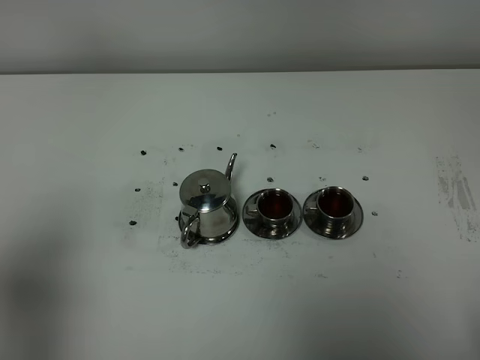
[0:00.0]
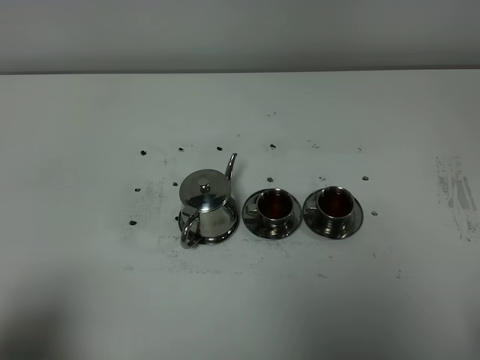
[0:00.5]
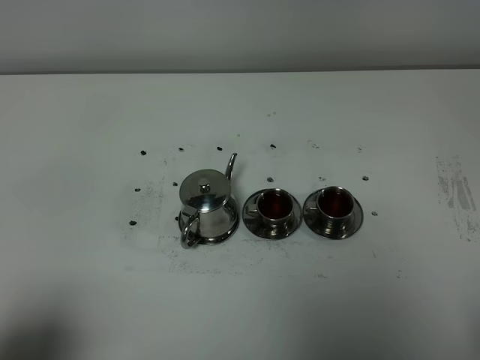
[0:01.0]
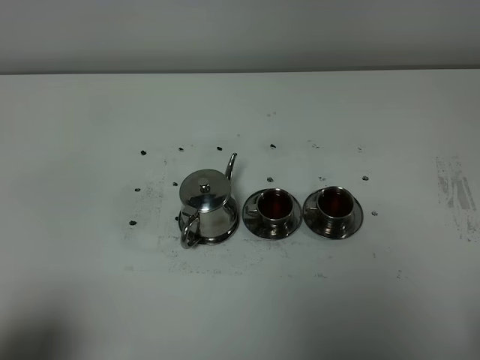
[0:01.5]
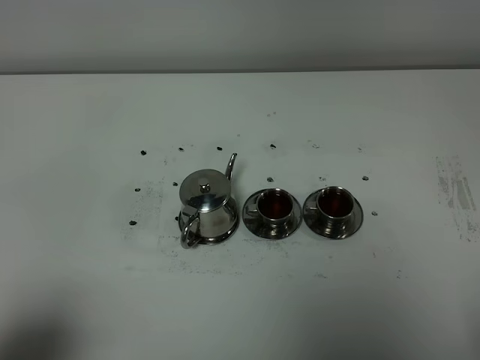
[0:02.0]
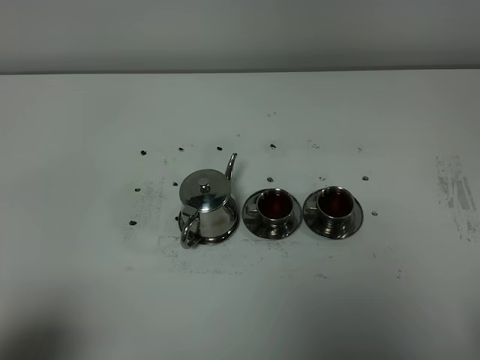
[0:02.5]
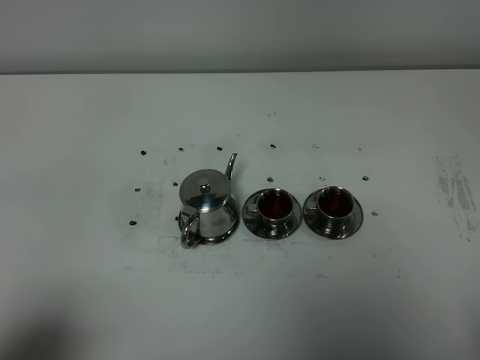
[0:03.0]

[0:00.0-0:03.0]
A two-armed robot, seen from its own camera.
Task of the whole recording: grasp the stainless steel teapot and pour the tea into the two stainless steel teacups one by one, put the stainless steel teapot back in its original place.
0:00.0 to 0:01.5: The left gripper shifts about 10 cm downward and backward.
0:01.5 to 0:03.0: Neither gripper changes place.

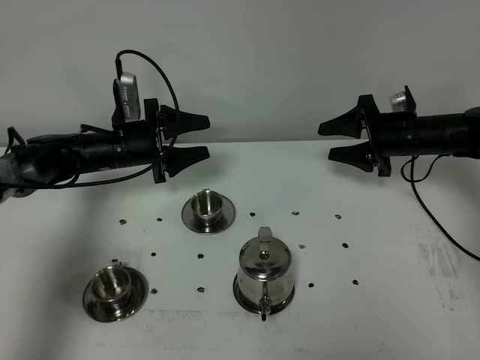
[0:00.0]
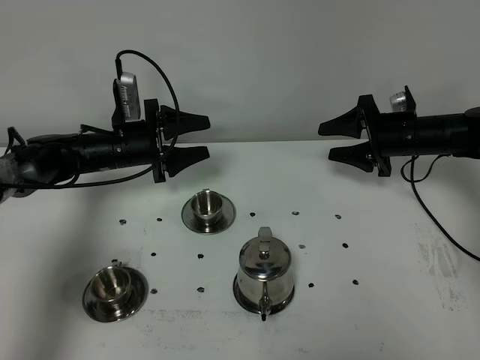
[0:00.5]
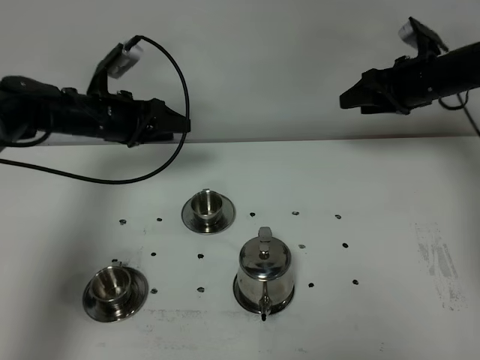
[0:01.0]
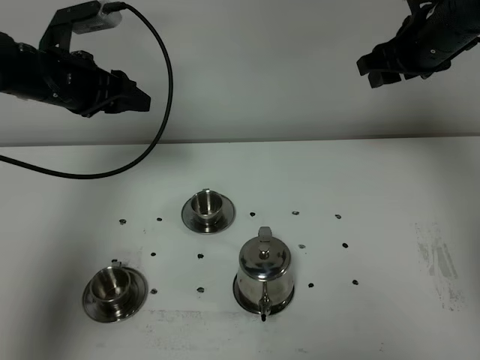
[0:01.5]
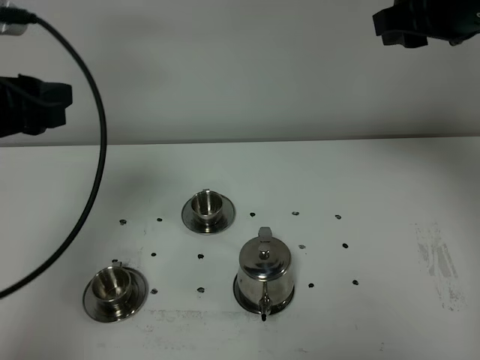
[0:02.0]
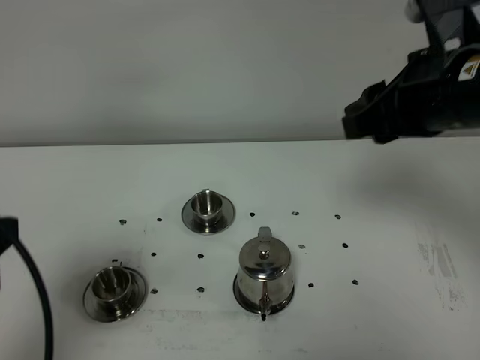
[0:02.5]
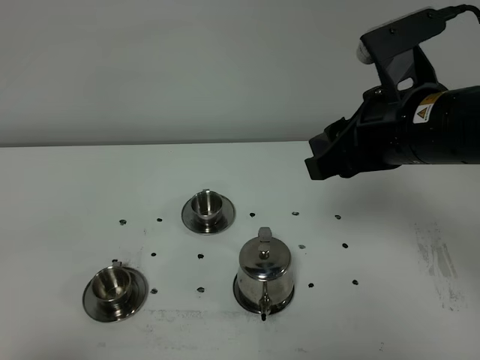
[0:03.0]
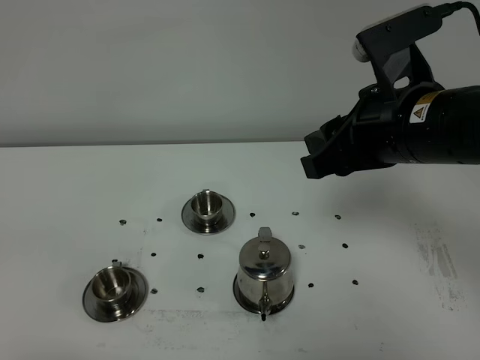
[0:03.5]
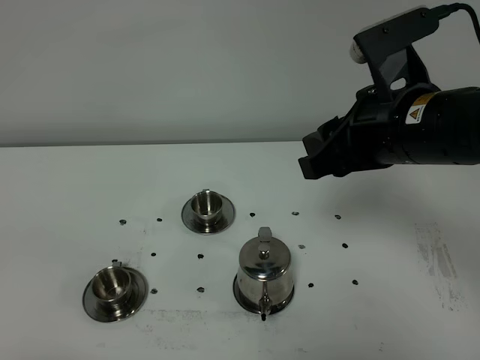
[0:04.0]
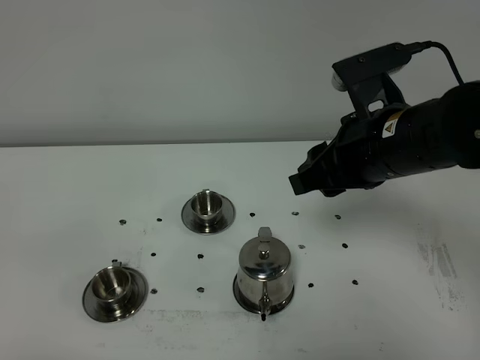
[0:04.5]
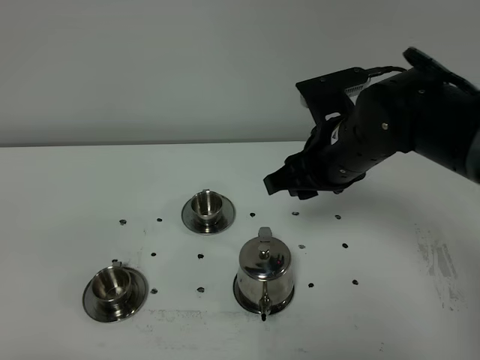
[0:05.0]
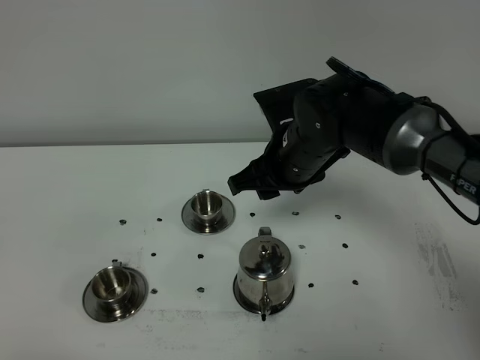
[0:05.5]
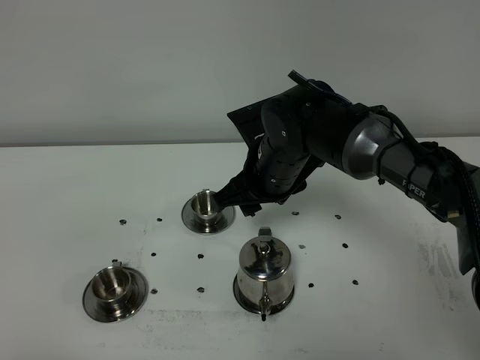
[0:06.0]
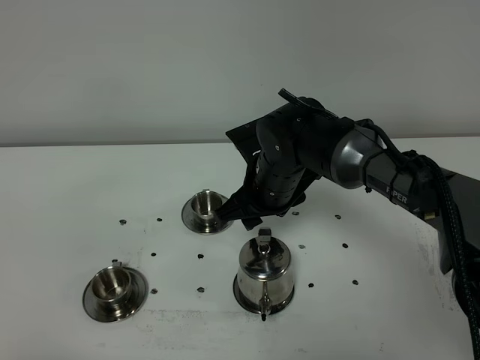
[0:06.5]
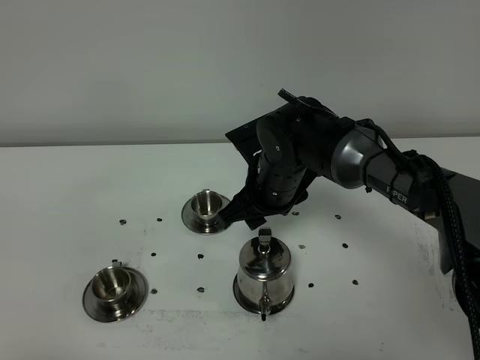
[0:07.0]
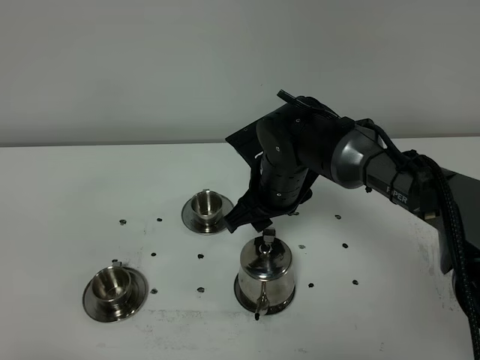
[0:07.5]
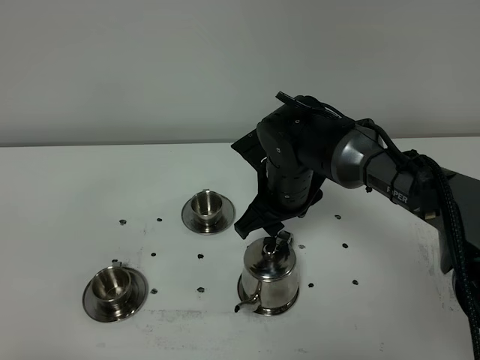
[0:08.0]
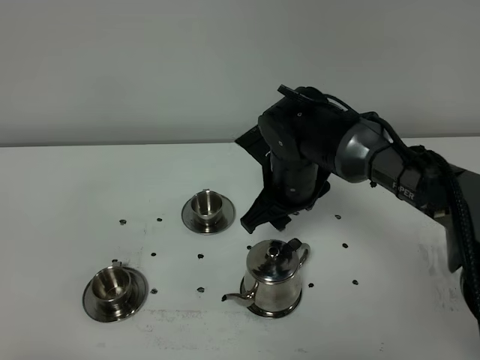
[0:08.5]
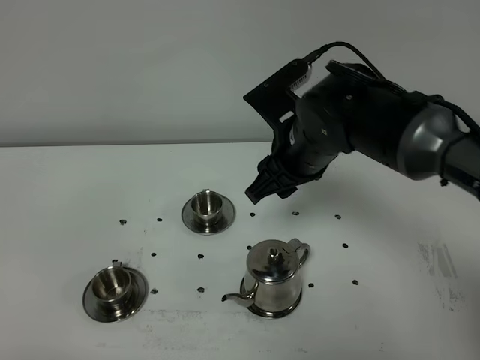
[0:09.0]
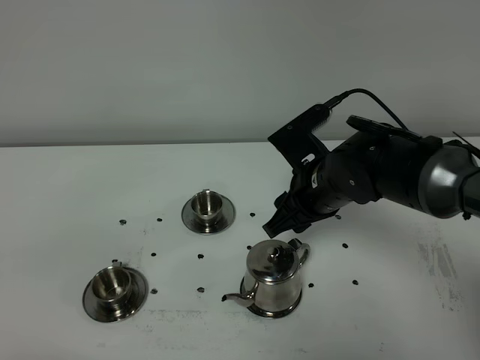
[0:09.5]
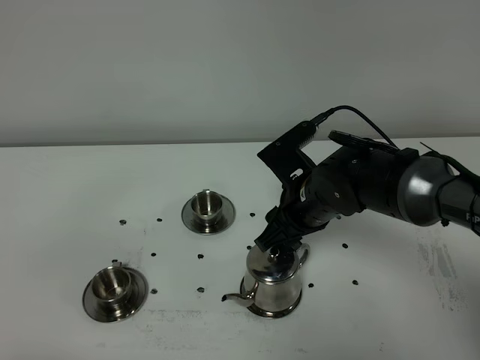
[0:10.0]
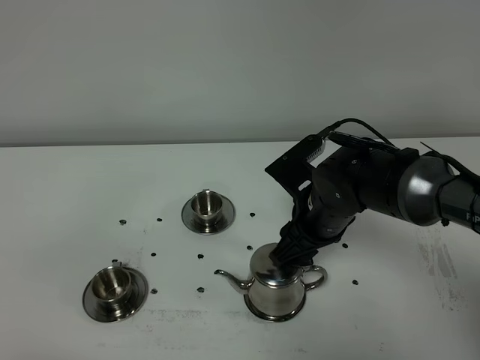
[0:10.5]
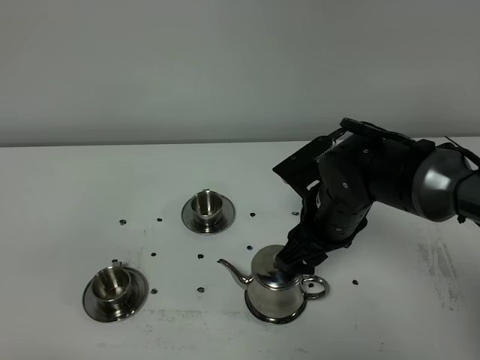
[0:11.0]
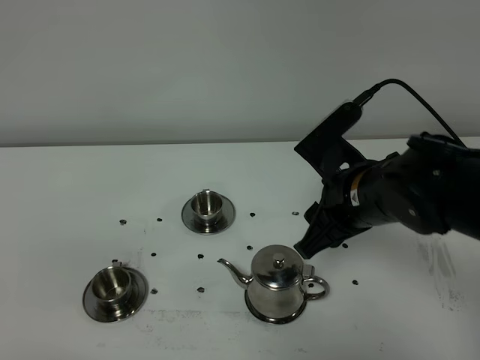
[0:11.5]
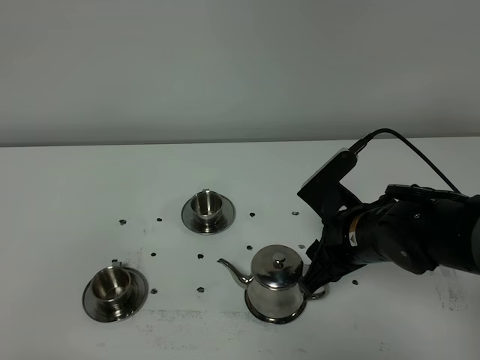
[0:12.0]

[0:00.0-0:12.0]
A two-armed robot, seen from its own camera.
Task of the whole recording: grasp the stainless steel teapot and pour the tea into the two stainless steel teacups one by one, put the stainless steel teapot back in its original place.
0:00.0 to 0:02.0: The grippers both shift upward and backward by about 30 cm.
0:02.0 to 0:04.0: The right gripper heads backward, downward and to the left, covering about 15 cm; the left gripper heads backward, covering approximately 30 cm.
0:04.0 to 0:06.0: The right gripper goes some 20 cm downward, to the left and forward.
0:06.0 to 0:08.0: There are only small adjustments of the grippers.
0:08.0 to 0:10.0: The right gripper reaches some 5 cm upward, then returns.
0:10.0 to 0:12.0: The right gripper shifts some 5 cm backward.

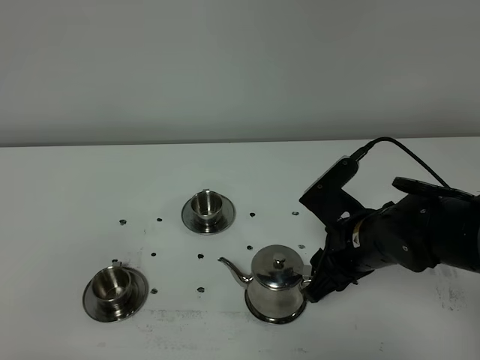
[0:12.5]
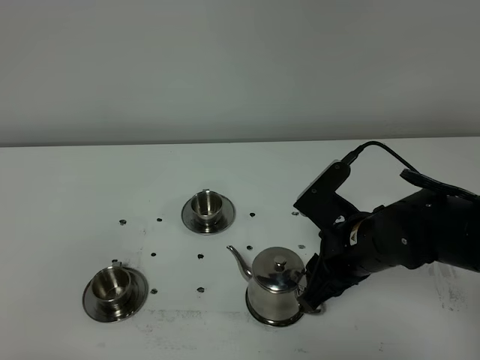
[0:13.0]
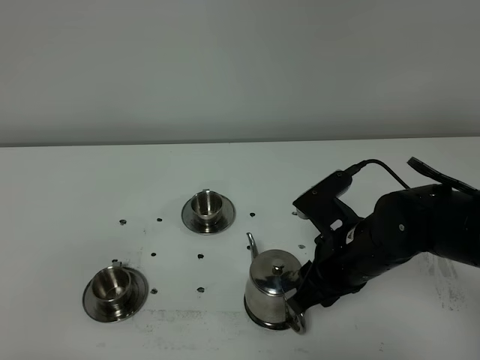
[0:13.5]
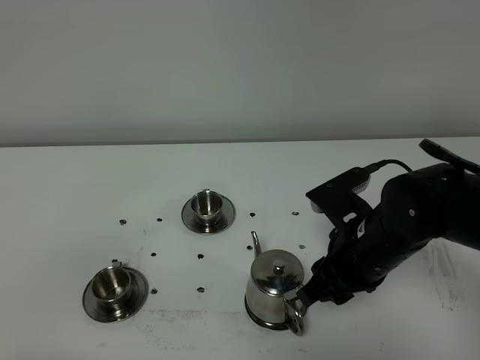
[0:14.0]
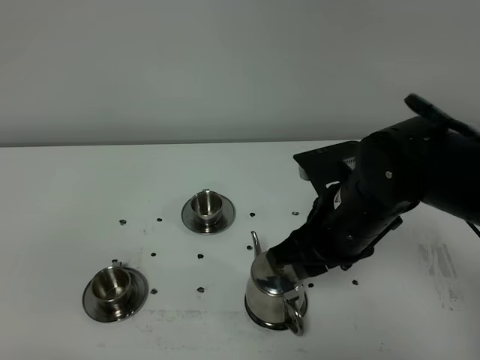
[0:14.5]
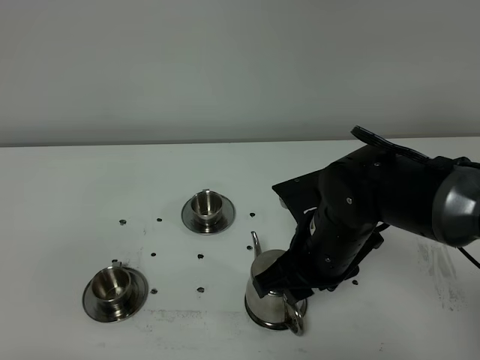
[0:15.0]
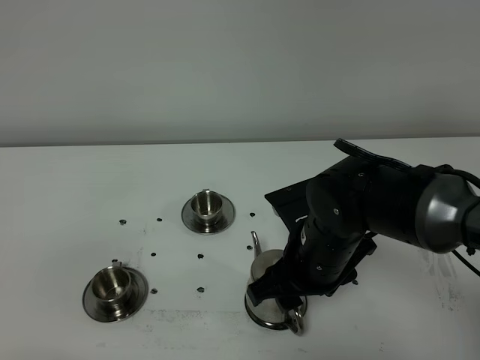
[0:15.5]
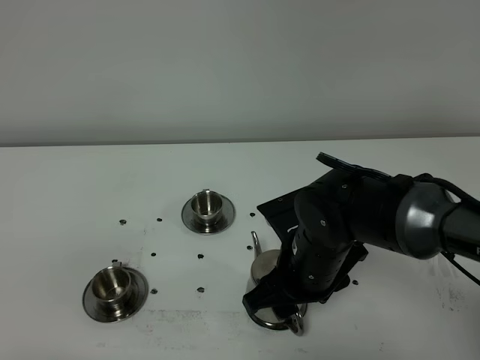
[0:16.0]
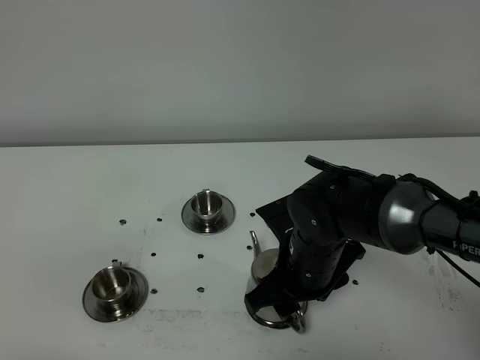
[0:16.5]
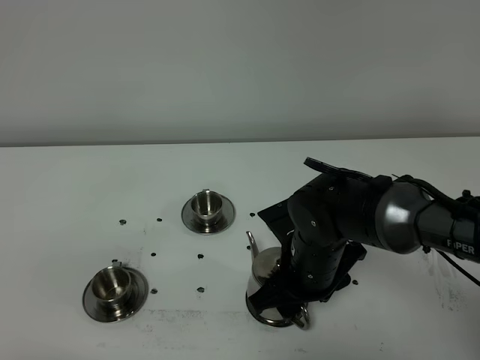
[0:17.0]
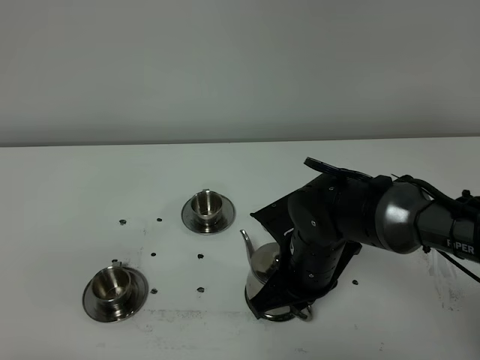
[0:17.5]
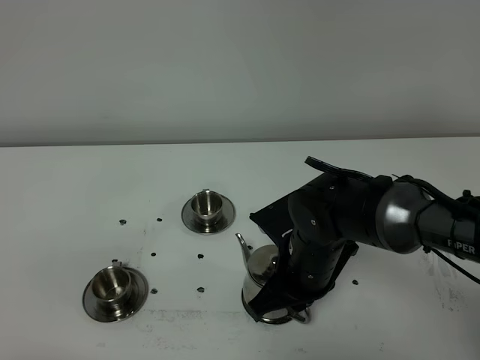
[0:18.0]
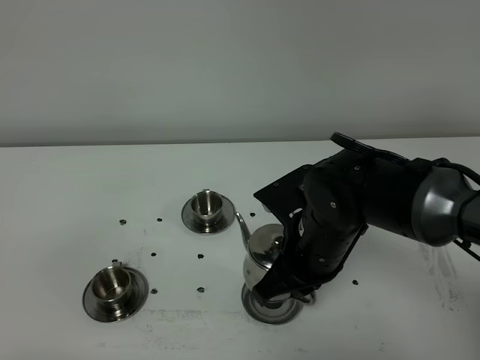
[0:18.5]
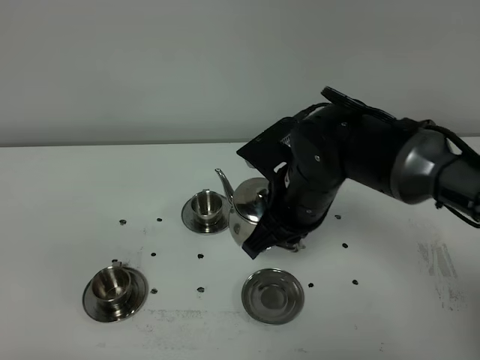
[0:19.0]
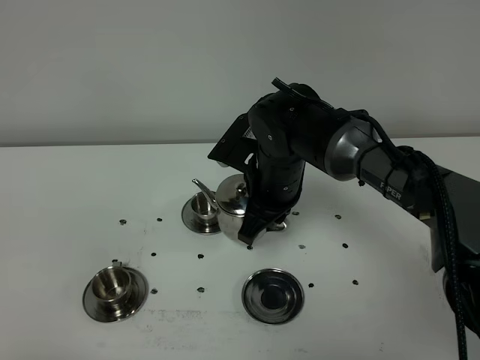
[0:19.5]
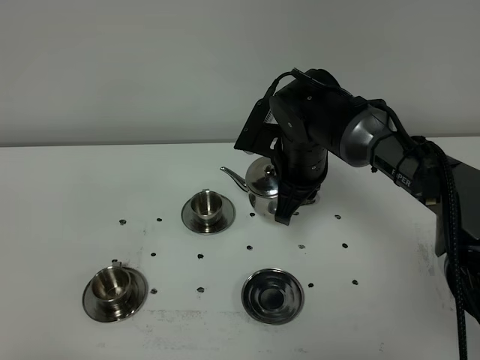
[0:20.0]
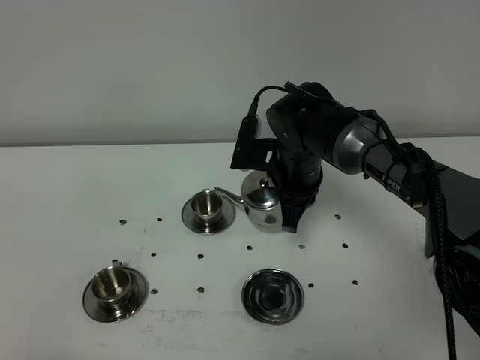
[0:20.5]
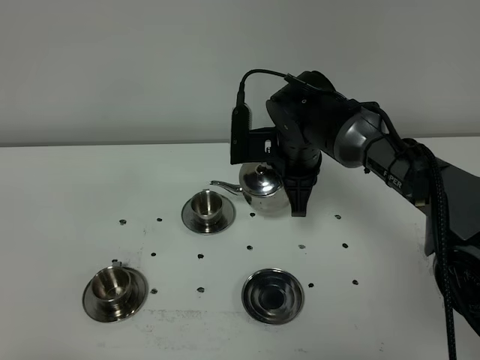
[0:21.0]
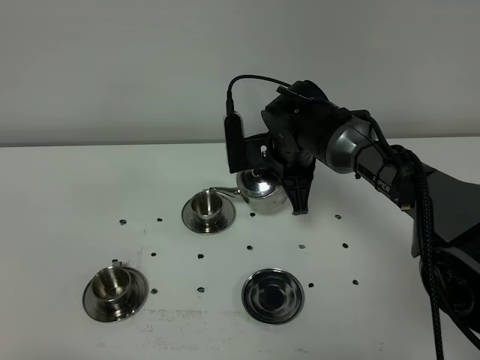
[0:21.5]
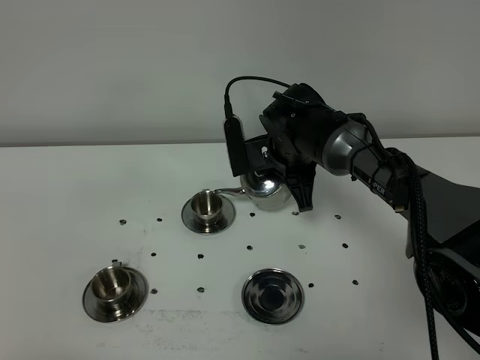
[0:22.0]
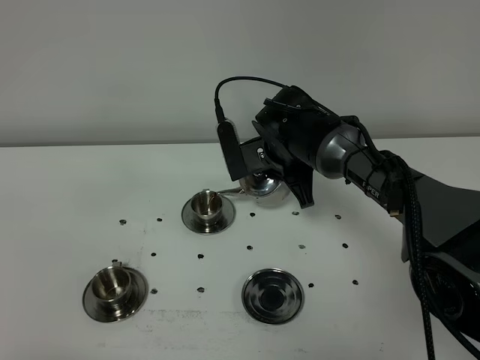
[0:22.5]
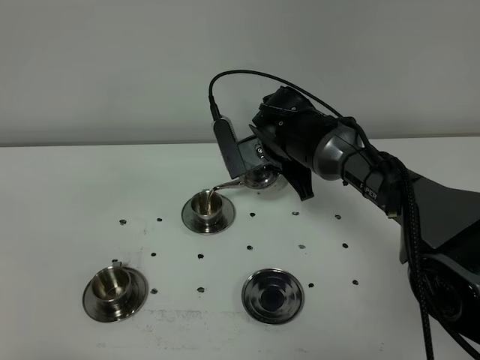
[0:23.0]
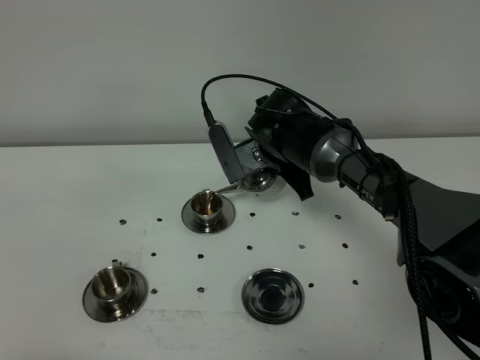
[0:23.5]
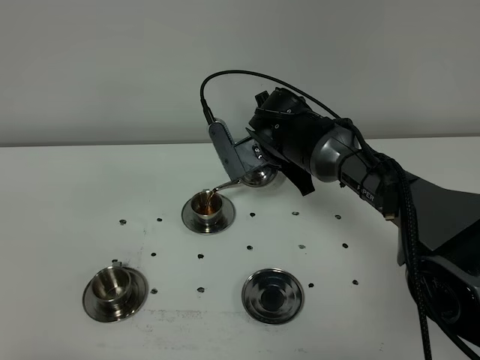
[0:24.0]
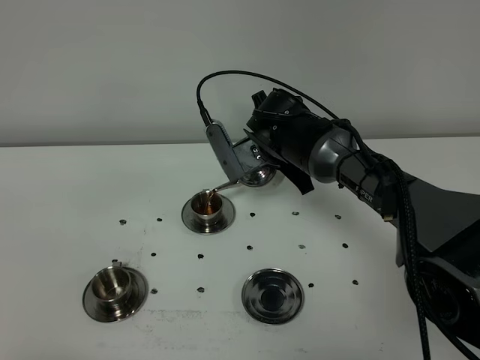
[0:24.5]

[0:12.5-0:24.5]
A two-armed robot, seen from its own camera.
Task of the whole recording: grasp the stainless steel teapot and pour the tea into the two stainless steel teacups one by one, put the stainless steel teapot back in its original place.
Step, 0:12.5 to 0:18.0: Pick up the teapot with the right gripper.
0:12.5 to 0:14.5: The right gripper moves upward, about 5 cm.
0:14.5 to 0:16.5: The right gripper travels downward by some 5 cm.
0:16.5 to 0:18.5: The right gripper closes its fingers.
0:18.5 to 0:20.5: The right gripper is displaced forward by about 15 cm.
0:22.5 to 0:24.5: The grippers stay close to where they were, moving slightly.
